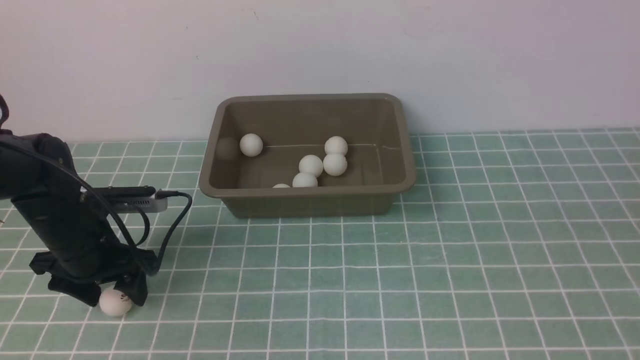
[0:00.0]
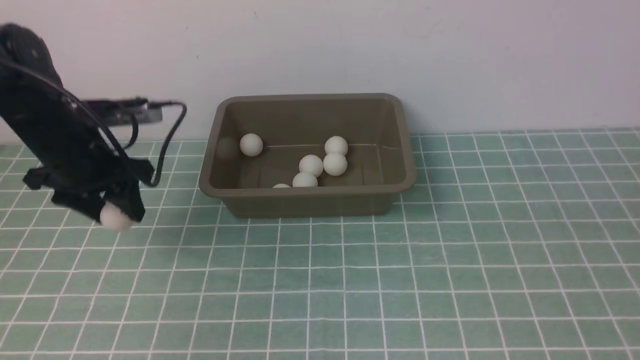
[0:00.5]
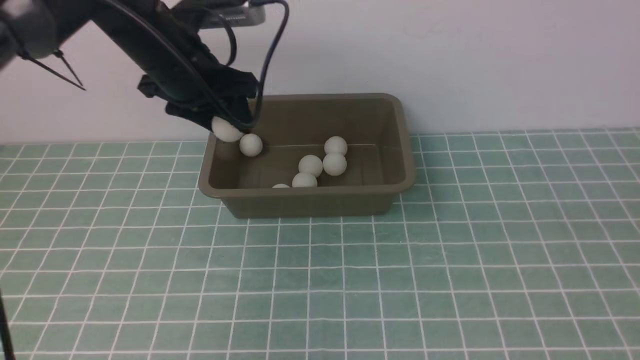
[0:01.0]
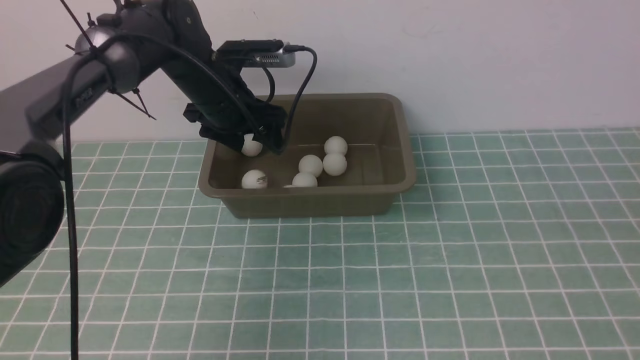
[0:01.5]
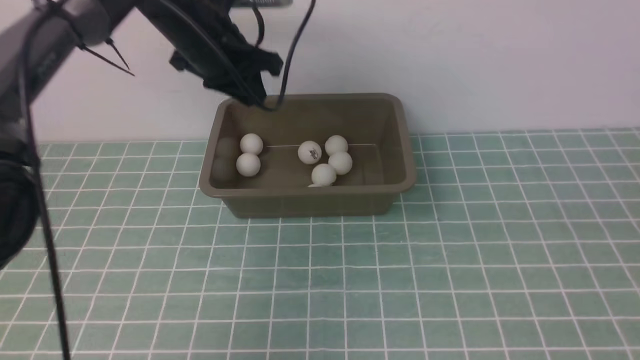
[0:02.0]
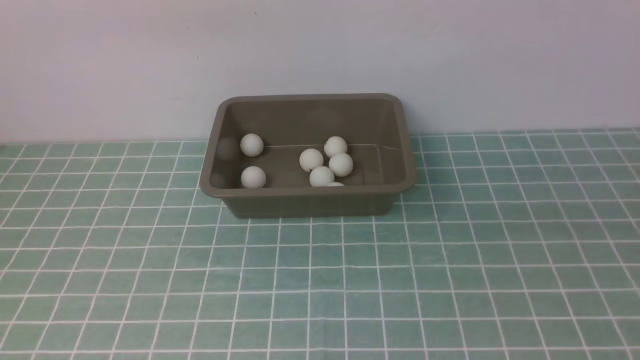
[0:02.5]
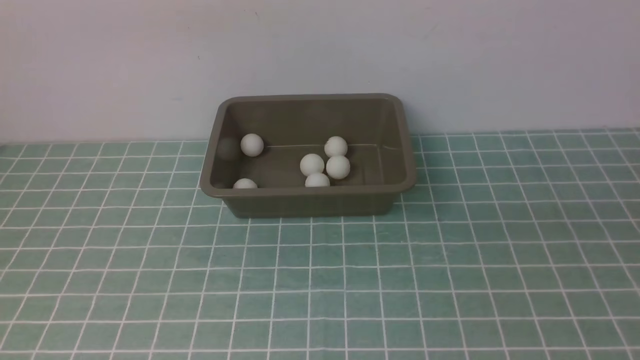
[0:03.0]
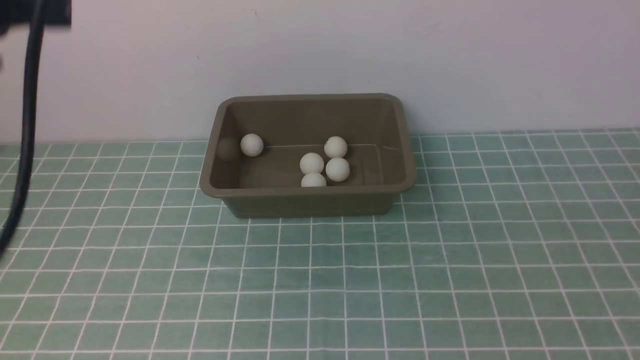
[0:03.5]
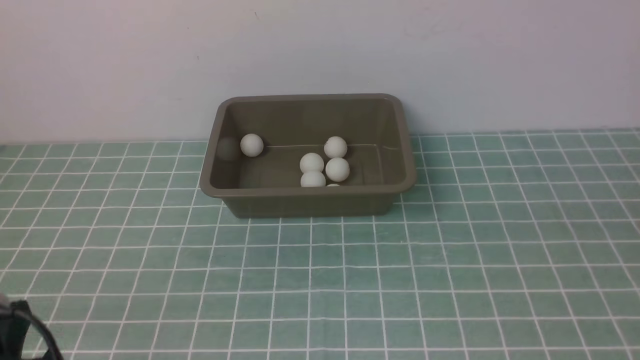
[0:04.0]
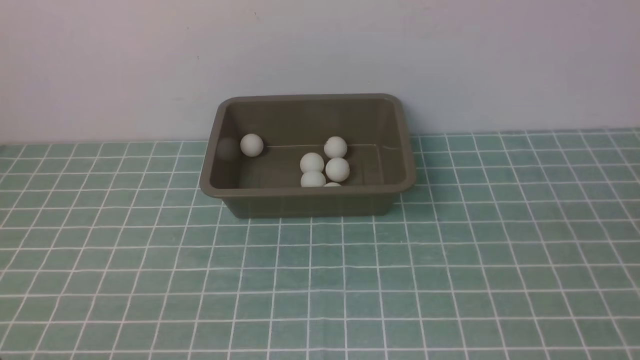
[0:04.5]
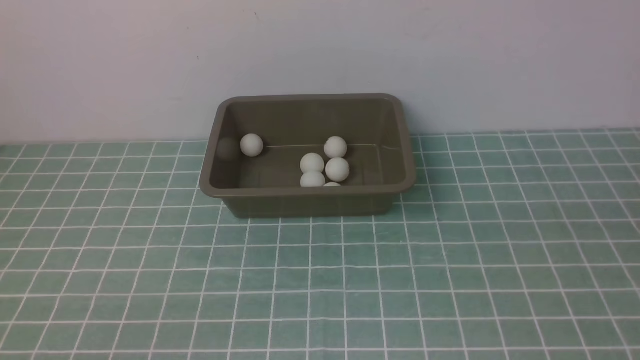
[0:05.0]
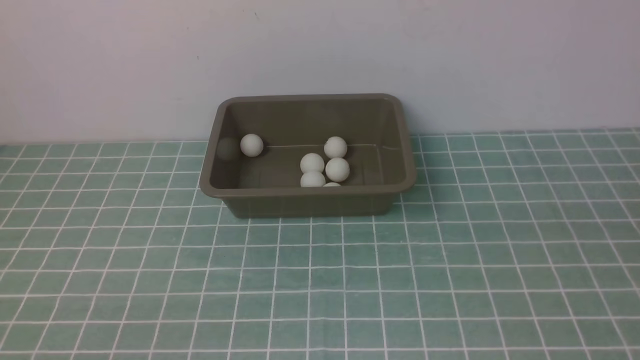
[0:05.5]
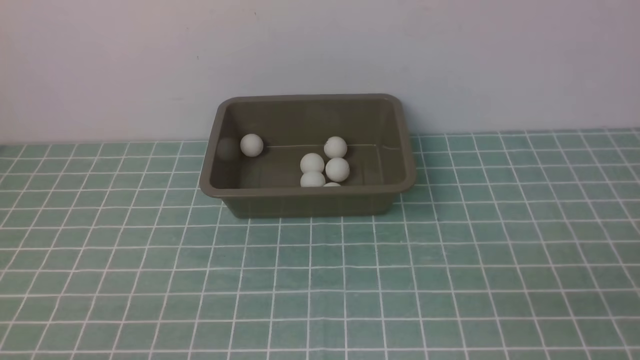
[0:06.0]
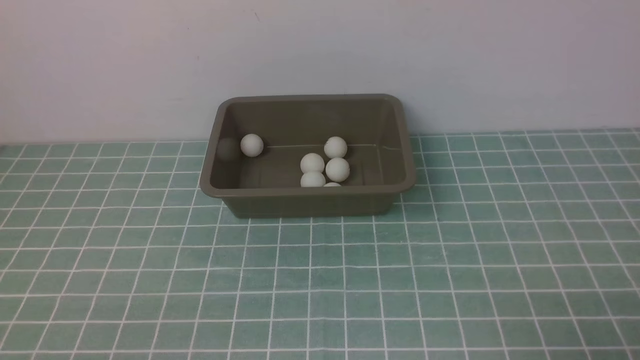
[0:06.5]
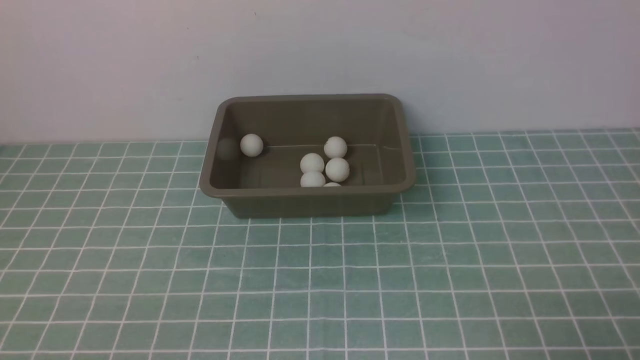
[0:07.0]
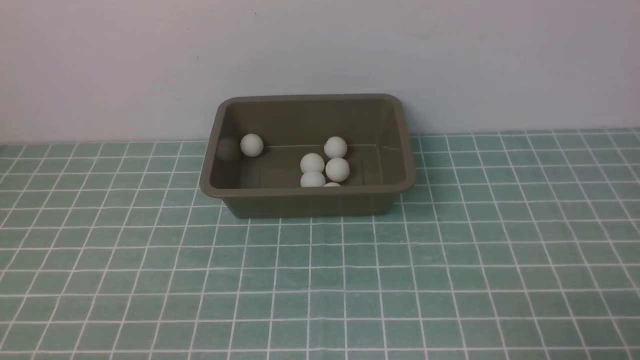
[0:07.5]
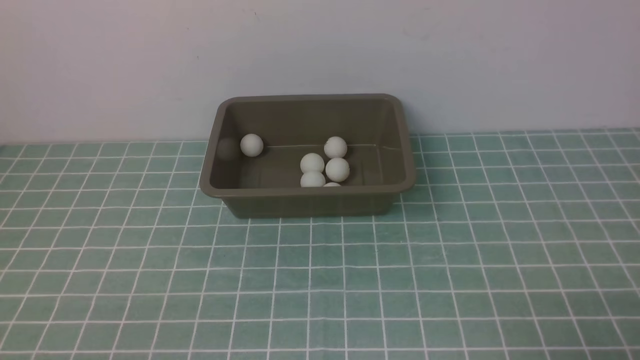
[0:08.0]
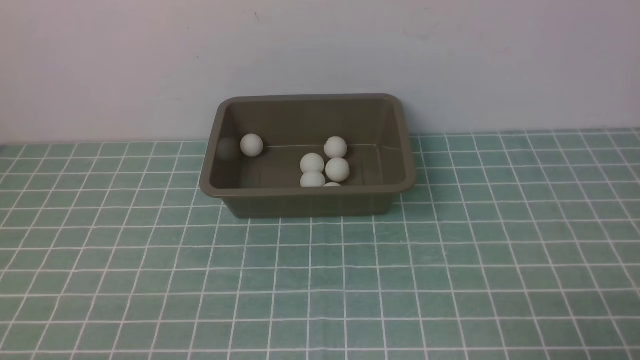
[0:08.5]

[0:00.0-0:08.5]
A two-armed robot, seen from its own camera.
Step, 0:01.0 to 0:01.5: use the left arm to put the table tennis ball into the box.
0:00.0 to 0:02.0: The left gripper goes up and down, roughly 25 cm each way, reversing 2 times, and closes.
0:02.0 to 0:04.0: The left gripper goes approximately 40 cm backward and downward.
0:06.5 to 0:08.5: Neither gripper changes place.

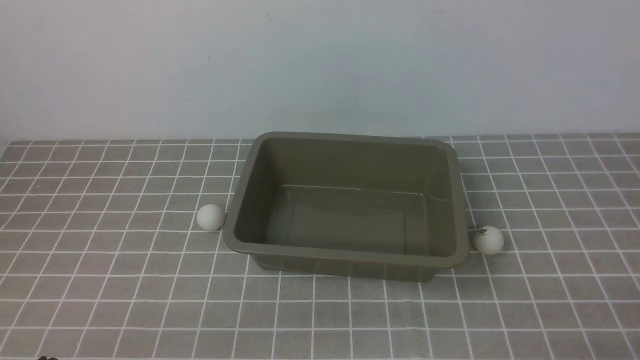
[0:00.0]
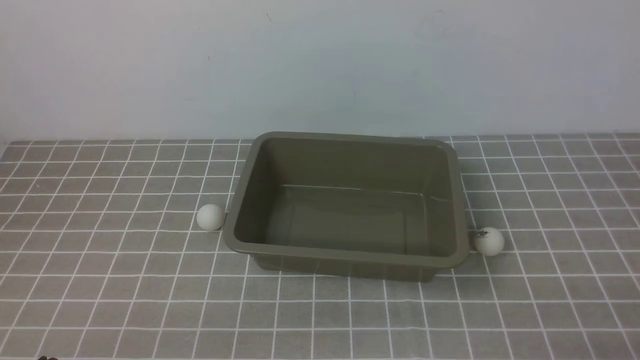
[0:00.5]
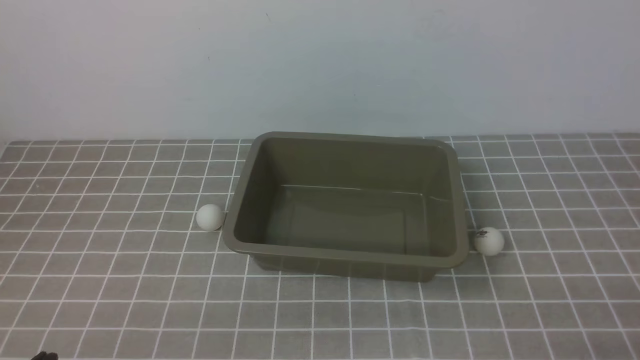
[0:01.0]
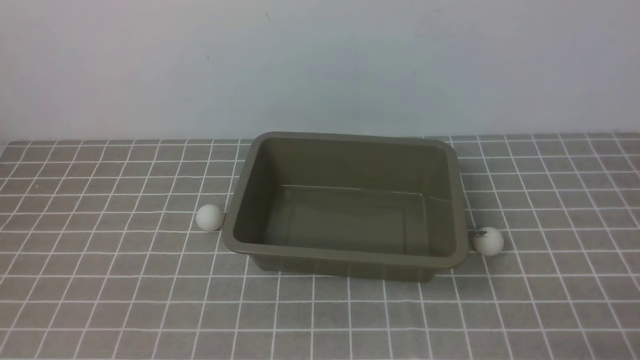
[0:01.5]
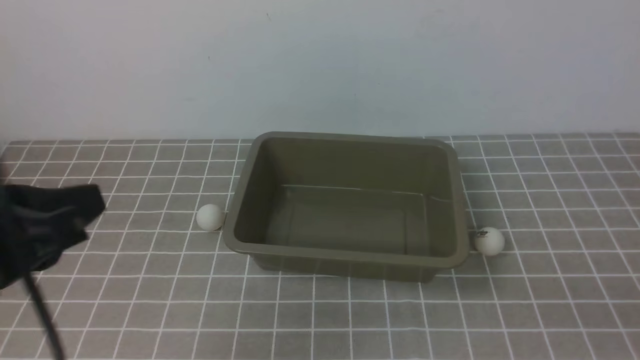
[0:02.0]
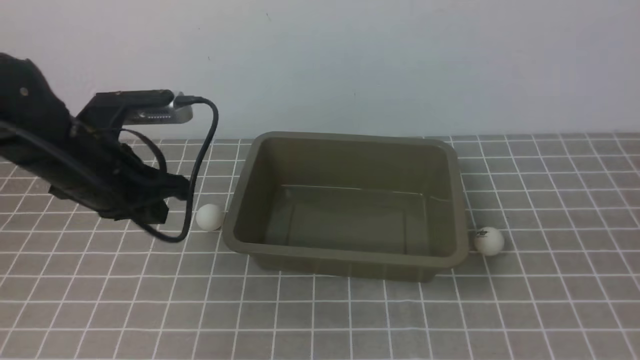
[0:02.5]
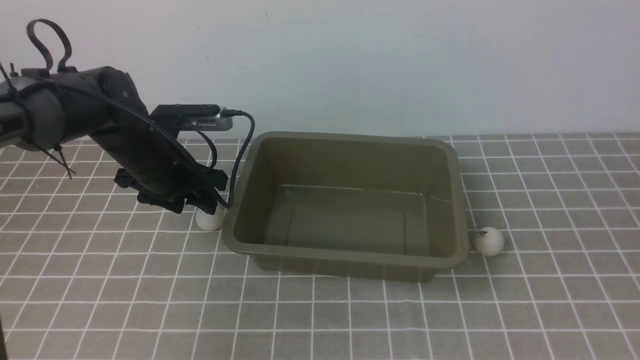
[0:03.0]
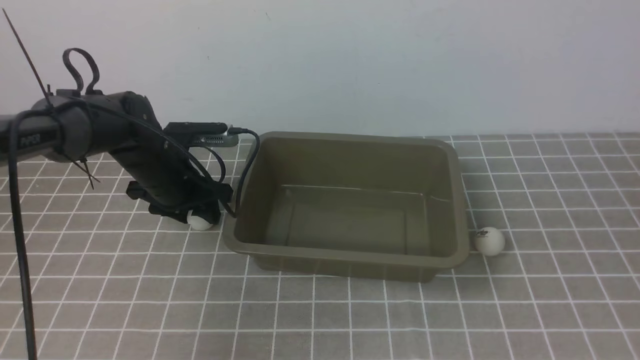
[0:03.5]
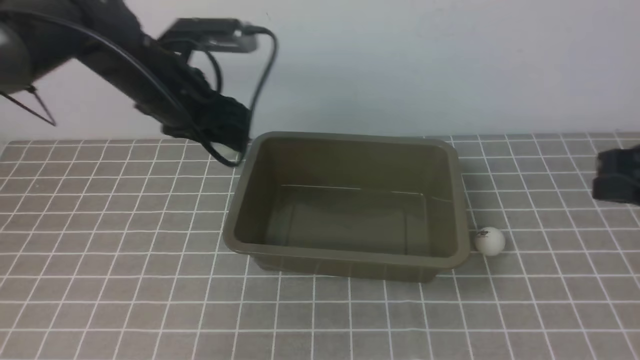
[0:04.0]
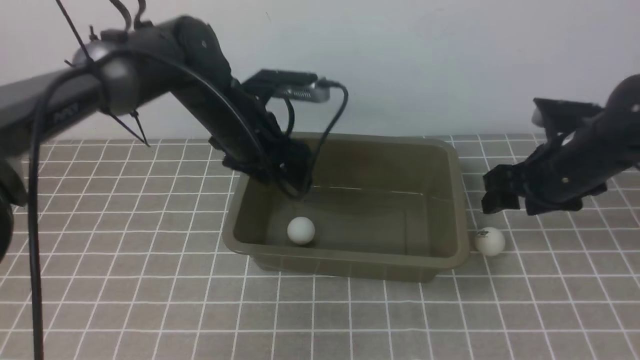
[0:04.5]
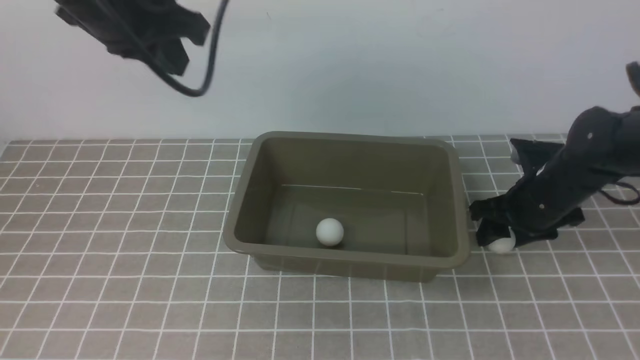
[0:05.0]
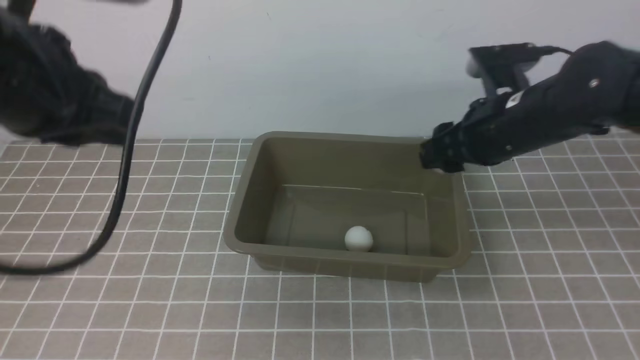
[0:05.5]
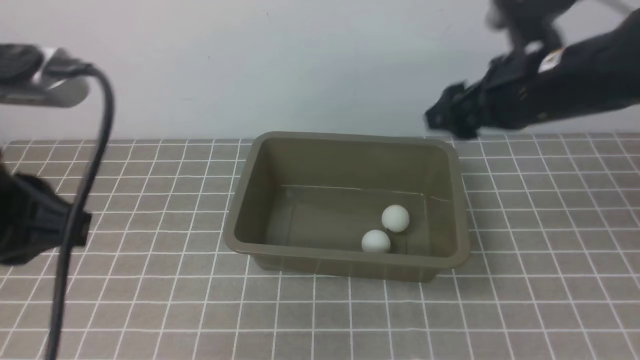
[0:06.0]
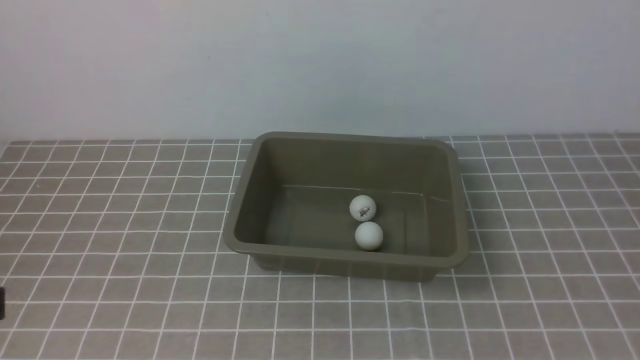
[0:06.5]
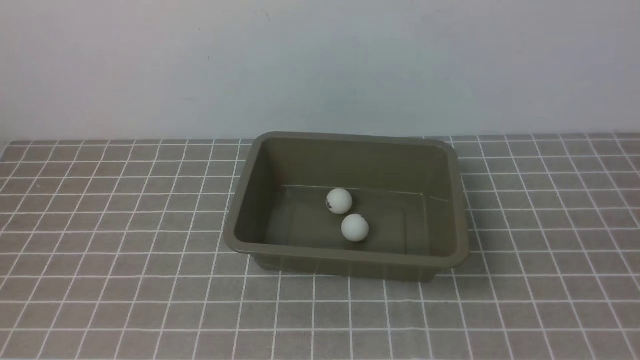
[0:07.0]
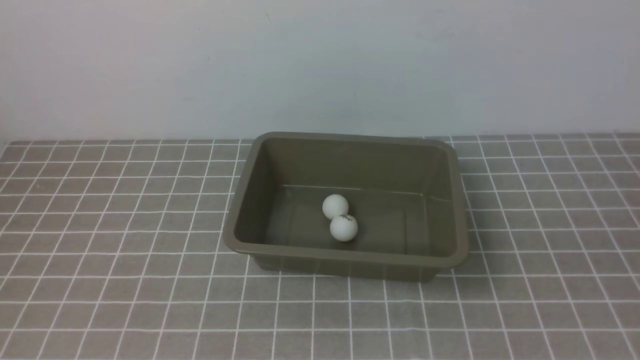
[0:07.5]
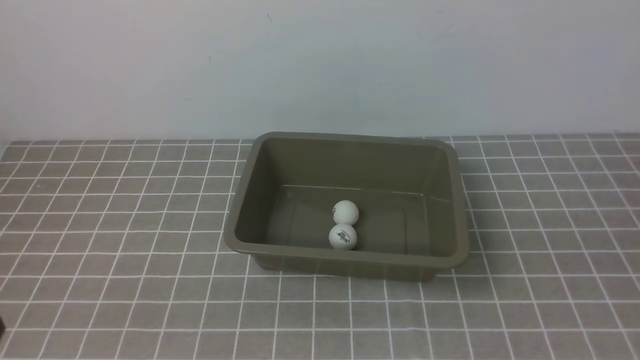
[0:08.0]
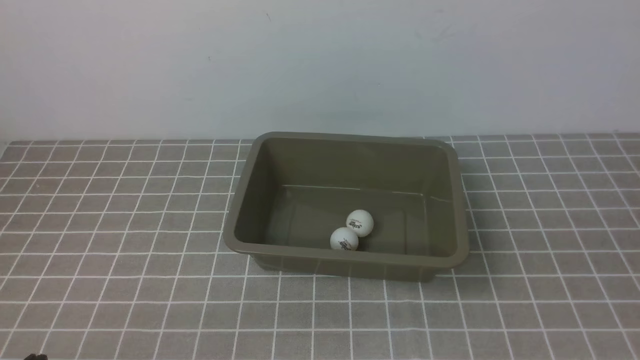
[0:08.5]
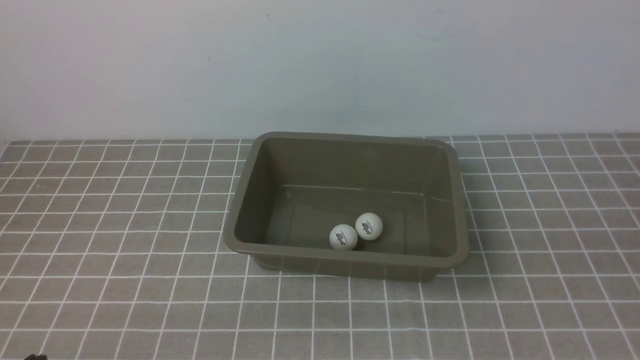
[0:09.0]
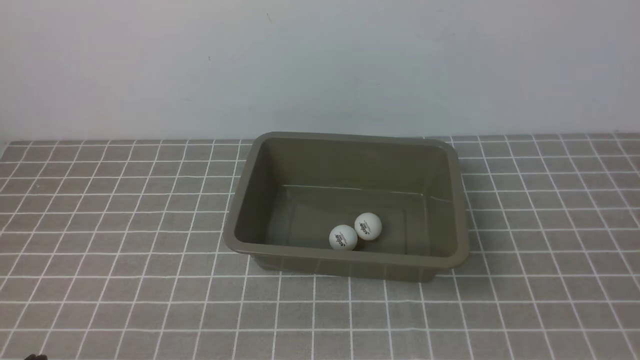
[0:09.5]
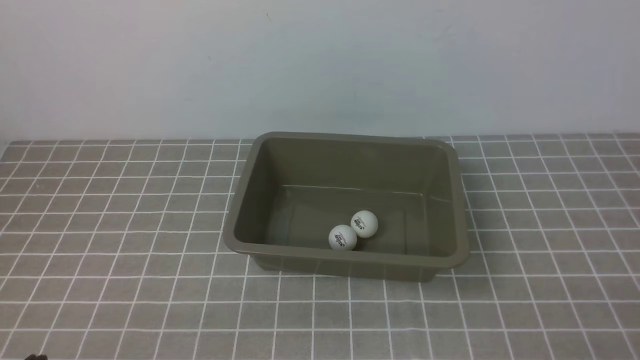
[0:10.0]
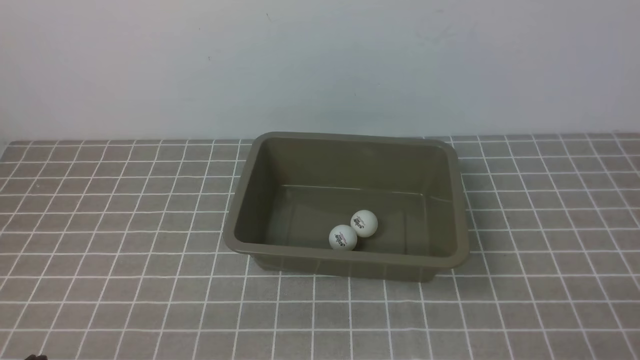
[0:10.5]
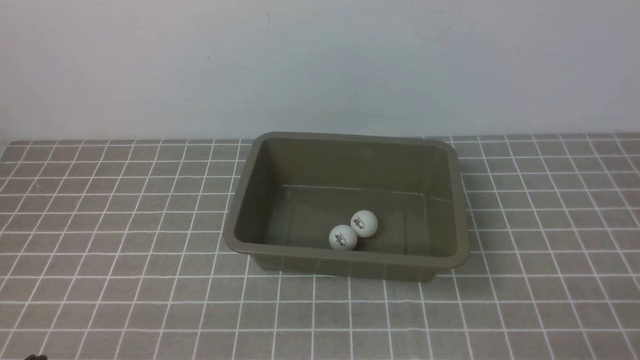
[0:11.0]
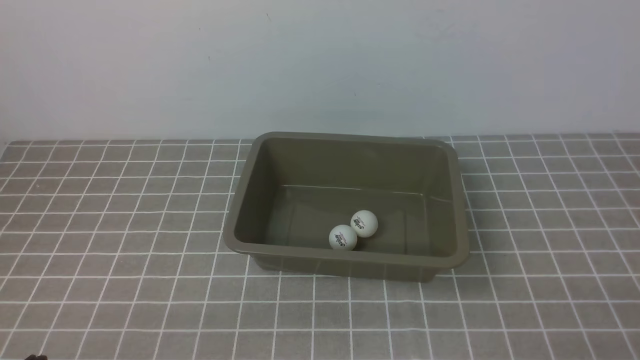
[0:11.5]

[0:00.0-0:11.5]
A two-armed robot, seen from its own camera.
Step, 0:00.0 to 0:03.5: use the left arm to clamp the table tennis ball closest to it.
Step, 0:04.5 to 0:05.0: use the right arm to clamp the table tennis ball closest to it.
0:00.0 to 0:02.0: The left gripper moves upward and forward, roughly 20 cm.
0:02.0 to 0:04.0: The right gripper travels forward and upward by some 20 cm. The left gripper shifts about 25 cm forward, and opens its fingers.
0:04.0 to 0:06.0: The right gripper goes some 10 cm to the left and forward, and reaches some 10 cm downward, then returns. The left gripper is displaced backward and upward by approximately 30 cm, and closes.
0:06.0 to 0:07.5: The right gripper shifts approximately 25 cm backward, and closes up; the left gripper shifts roughly 15 cm backward.
0:07.5 to 0:09.5: The left gripper heads downward and forward, covering about 15 cm. Meanwhile the right gripper shifts roughly 5 cm downward.
